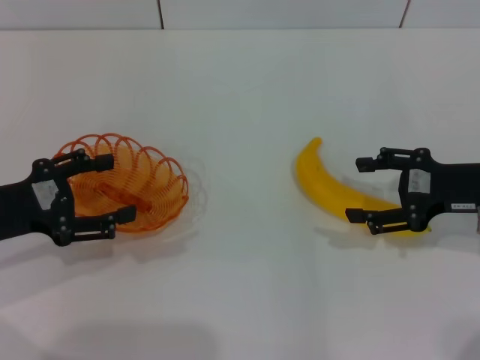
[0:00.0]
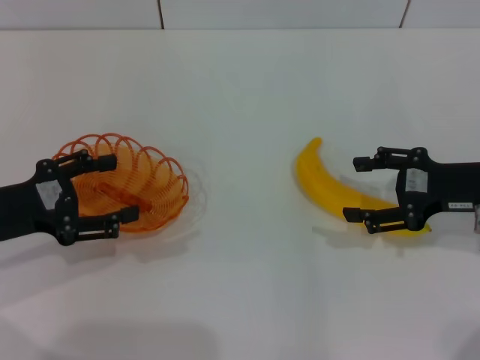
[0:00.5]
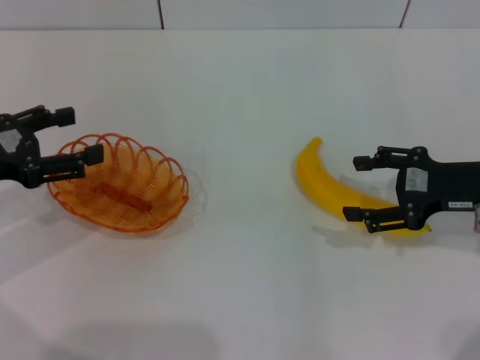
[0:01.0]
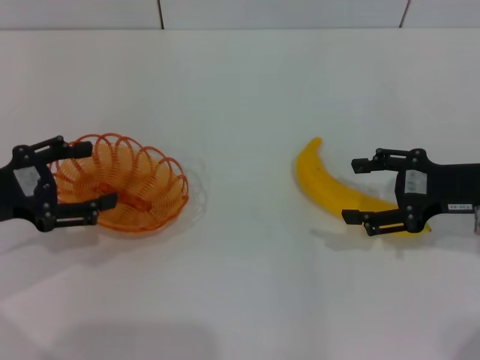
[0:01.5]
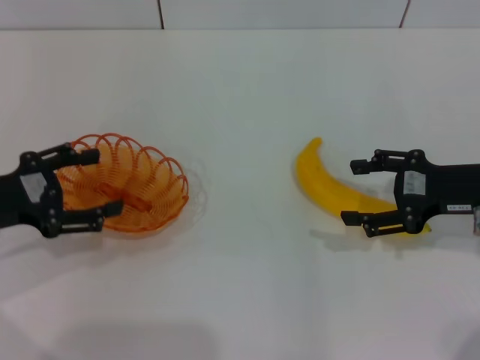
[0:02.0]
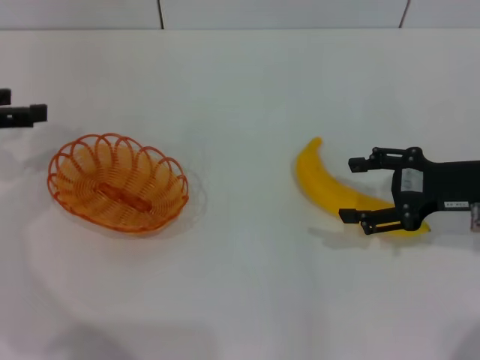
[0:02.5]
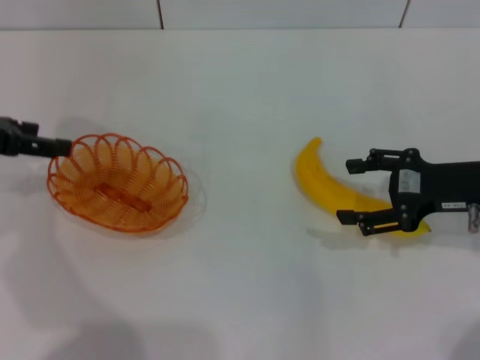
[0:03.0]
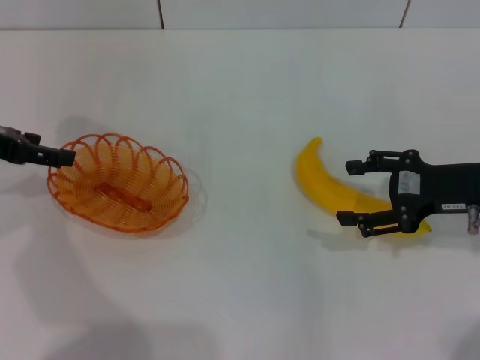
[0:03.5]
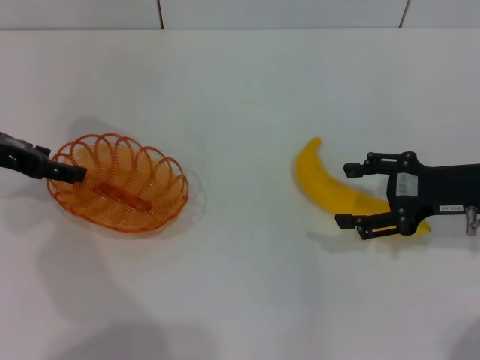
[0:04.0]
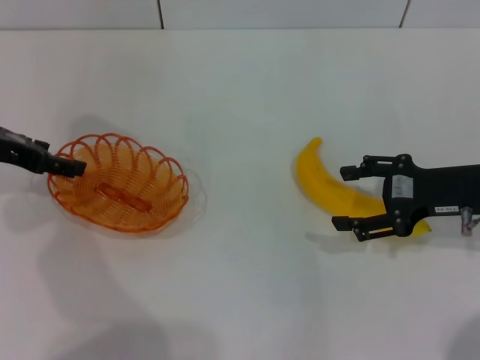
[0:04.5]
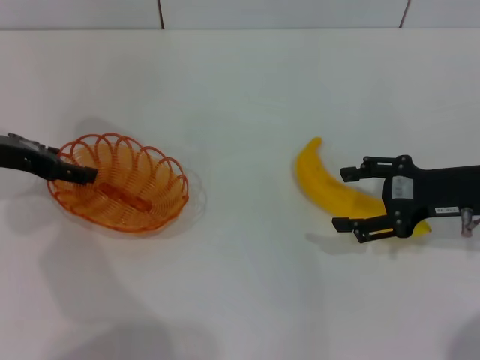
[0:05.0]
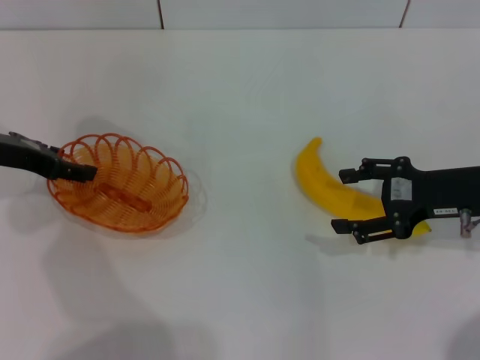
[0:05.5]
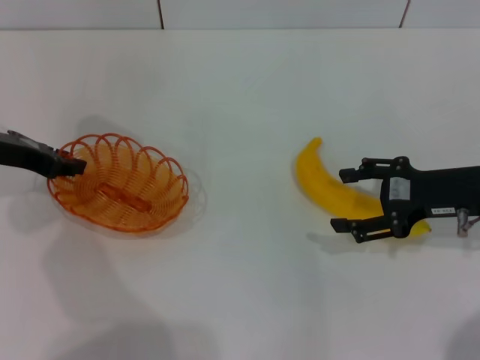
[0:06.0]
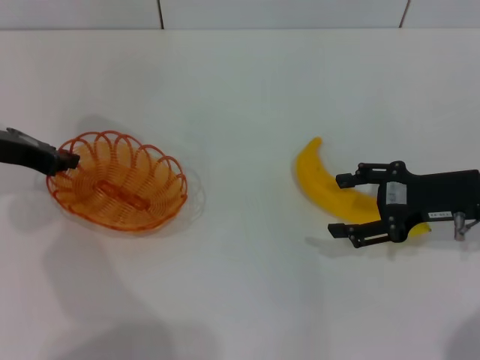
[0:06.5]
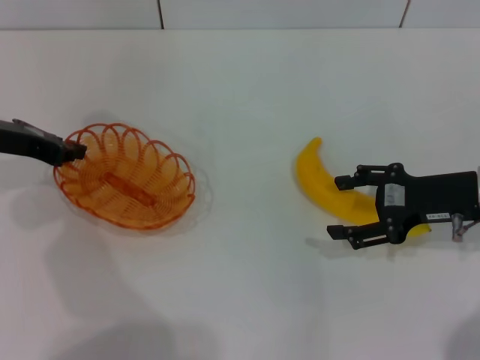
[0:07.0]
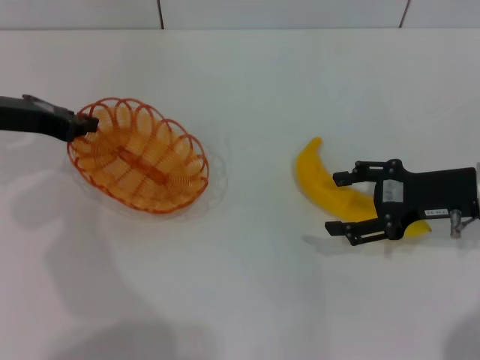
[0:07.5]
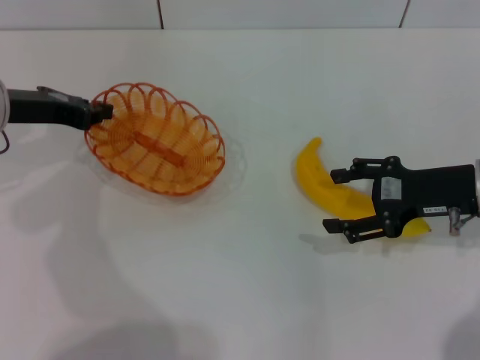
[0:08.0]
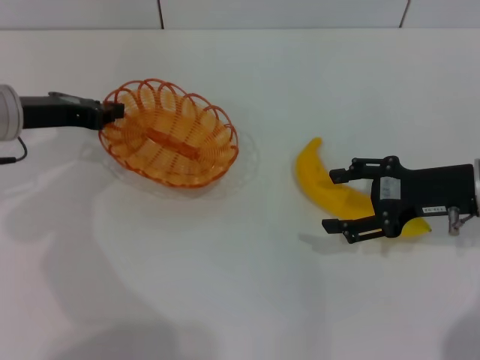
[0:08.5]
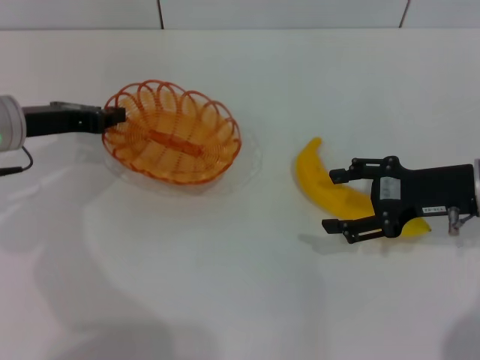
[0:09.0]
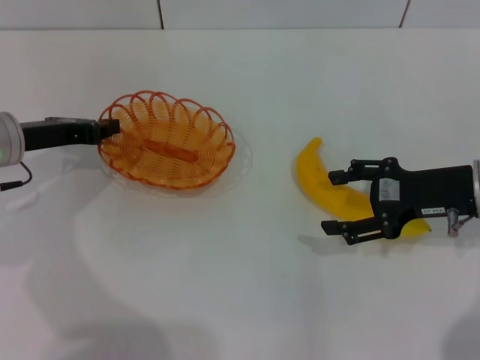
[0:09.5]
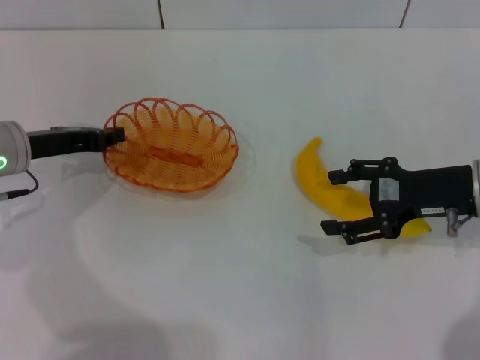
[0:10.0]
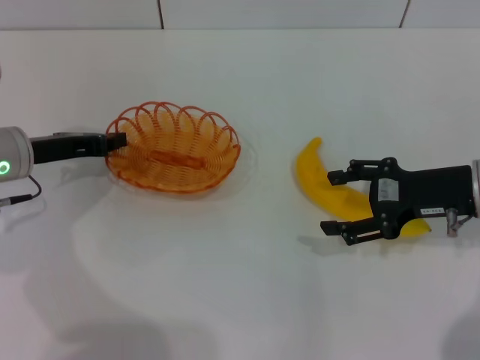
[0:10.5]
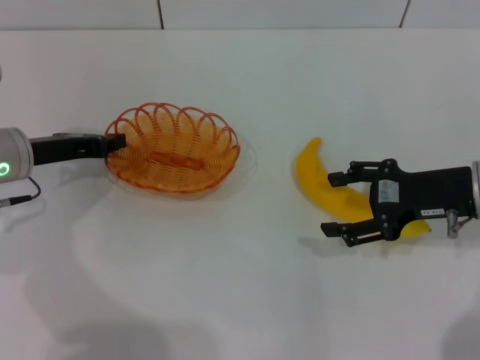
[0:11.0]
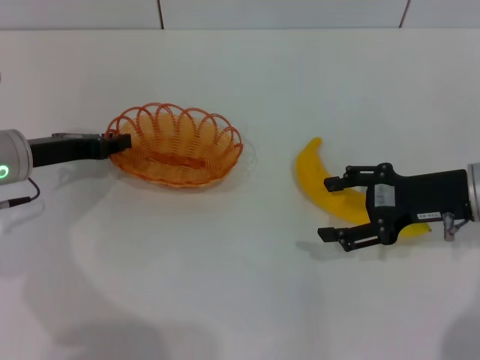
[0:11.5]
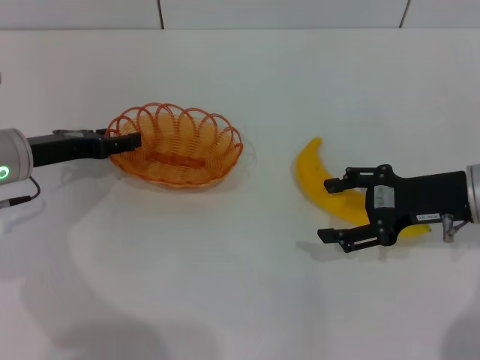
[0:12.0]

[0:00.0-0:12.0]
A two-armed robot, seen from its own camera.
Step, 0:00.0 to 0:08.0: Pick up the basket with the left gripper.
0:00.0 to 0:02.0: The grippers move only a little.
0:02.0 to 0:04.0: The left gripper travels forward by roughly 10 cm.
0:04.0 to 0:06.0: The left gripper closes up.
0:06.0 to 0:08.0: The left gripper closes its fingers.
0:08.0 to 0:10.0: The left gripper moves downward, roughly 5 cm.
0:10.0 to 0:12.0: The left gripper opens its fingers.

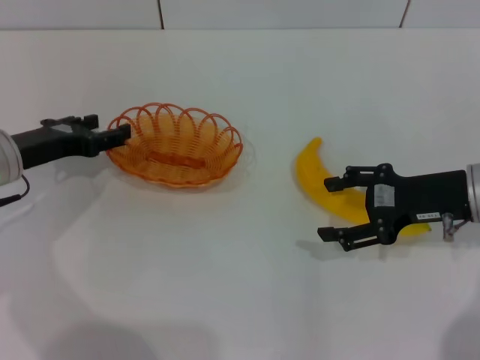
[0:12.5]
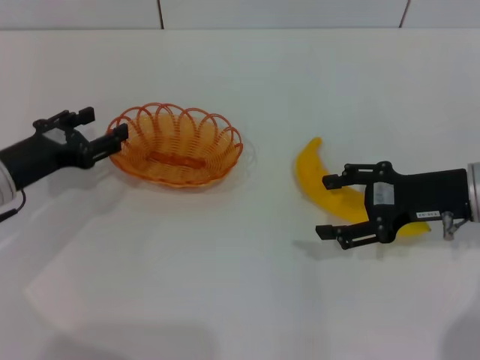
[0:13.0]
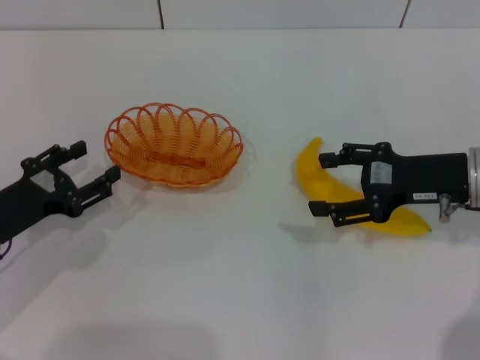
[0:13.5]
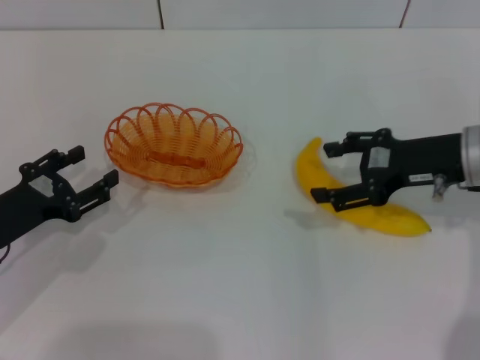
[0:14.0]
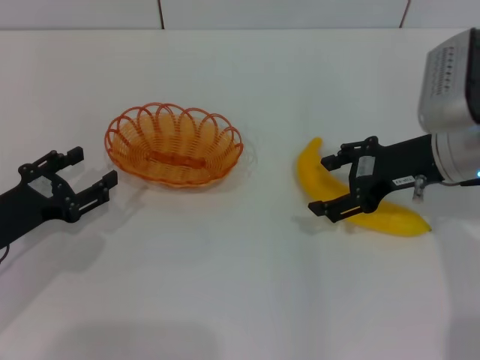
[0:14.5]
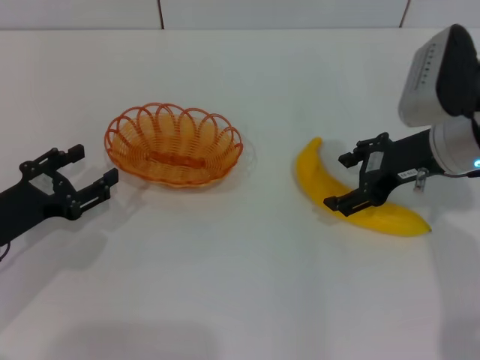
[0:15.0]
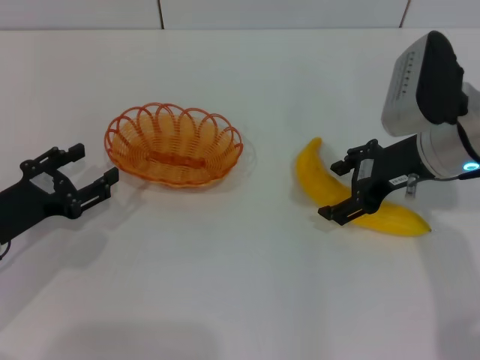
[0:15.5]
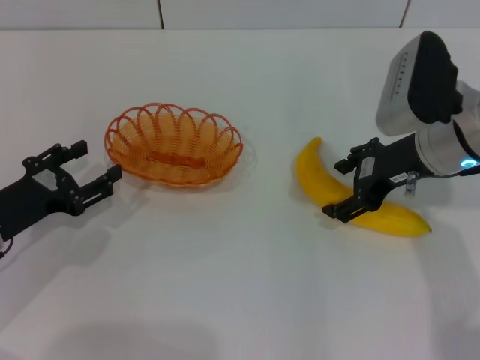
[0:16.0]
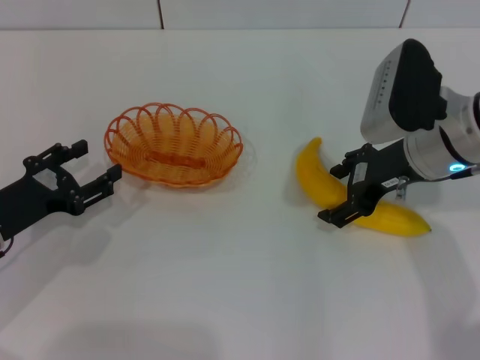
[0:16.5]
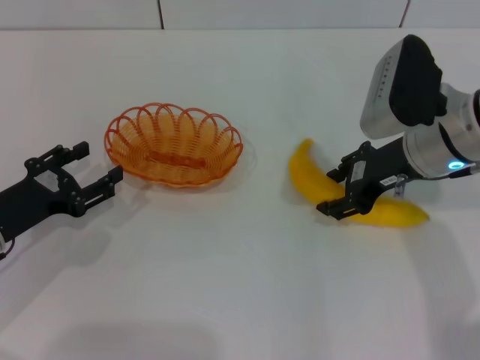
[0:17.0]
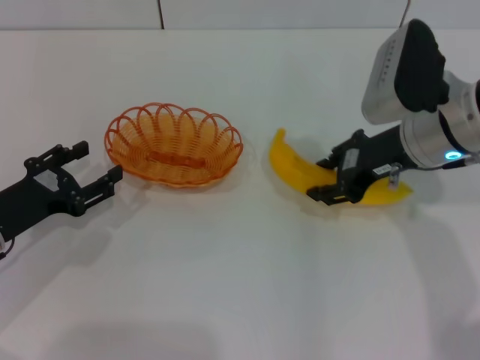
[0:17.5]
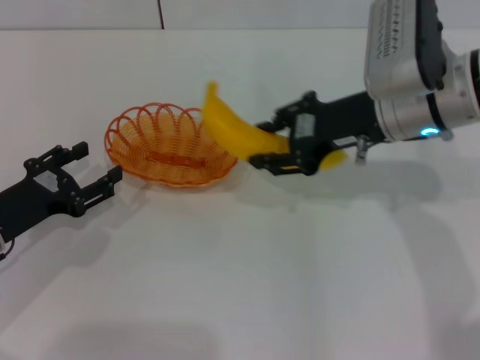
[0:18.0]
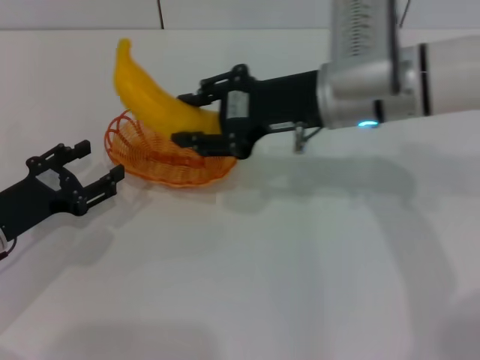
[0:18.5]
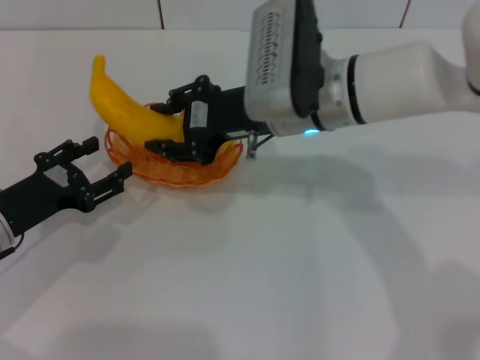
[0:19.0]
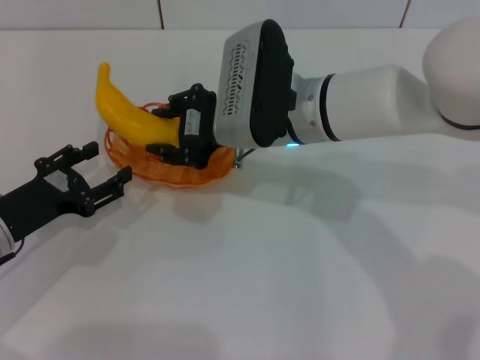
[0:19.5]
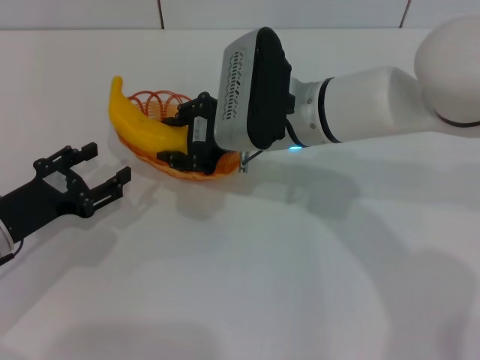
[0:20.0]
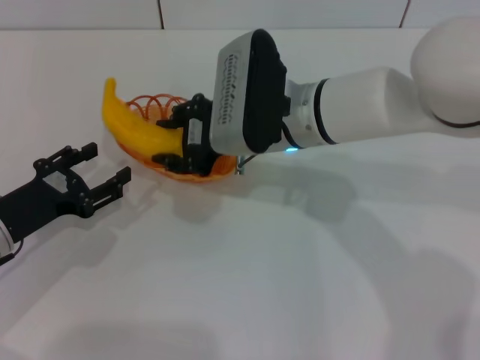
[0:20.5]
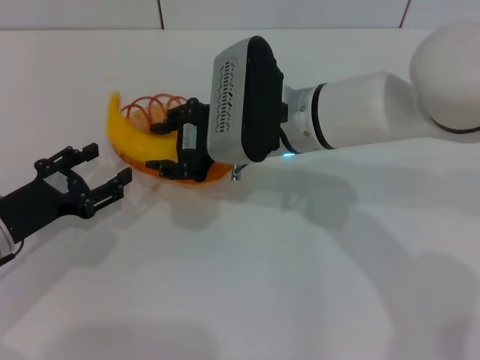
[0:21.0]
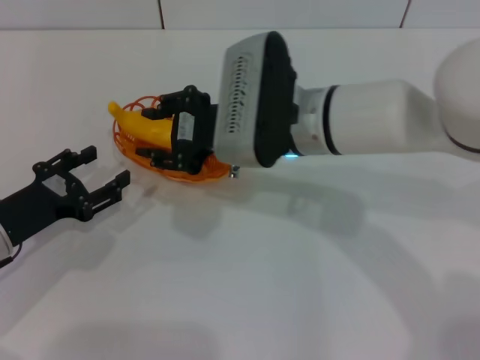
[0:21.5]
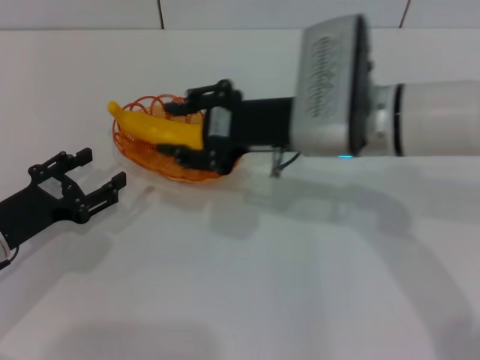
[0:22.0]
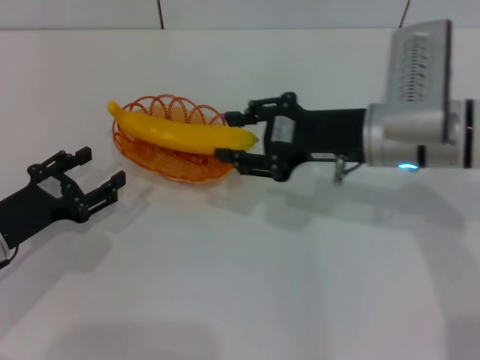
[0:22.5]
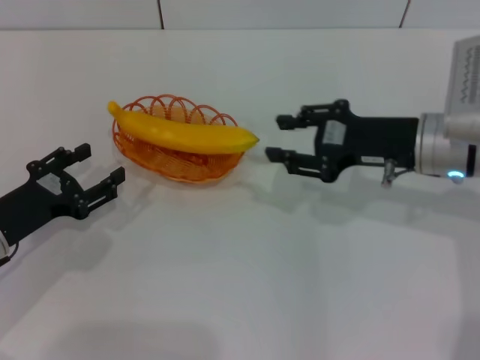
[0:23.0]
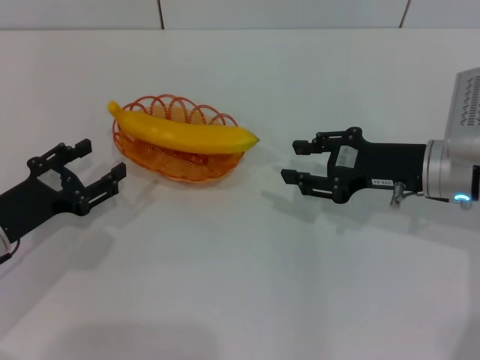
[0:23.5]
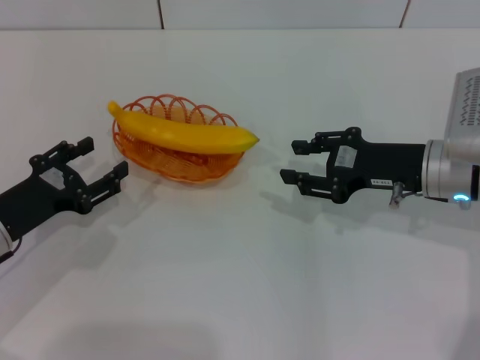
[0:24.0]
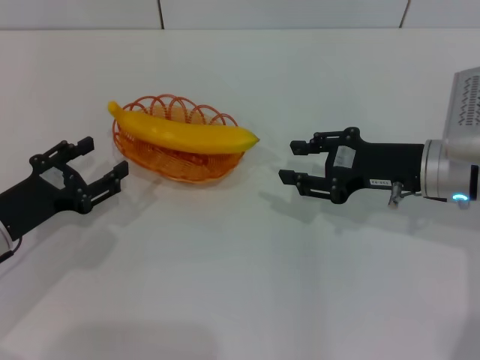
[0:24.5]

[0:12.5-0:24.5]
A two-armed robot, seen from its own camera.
Step, 0:13.0 to 0:17.5: Pick up the banana with the right gripper.
Step, 0:18.0 to 0:21.5: Place the banana into the basket with the right gripper.
0:12.5 to 0:14.5: The right gripper shifts by about 5 cm; the left gripper is displaced backward by approximately 10 cm.
0:14.5 to 0:16.5: There are only small adjustments of the grippers.
0:16.5 to 0:18.5: The right gripper shifts some 10 cm to the left, and closes.
0:18.5 to 0:20.5: The right gripper heads to the left, covering approximately 5 cm.
0:20.5 to 0:22.5: The right gripper shifts about 10 cm to the right.
0:22.5 to 0:24.5: The right gripper shifts about 5 cm to the right.
